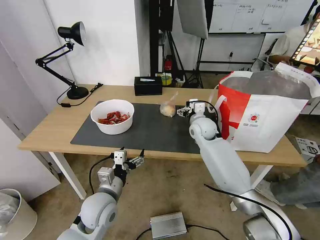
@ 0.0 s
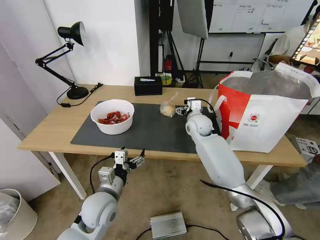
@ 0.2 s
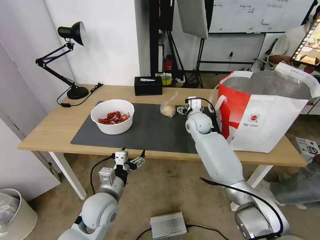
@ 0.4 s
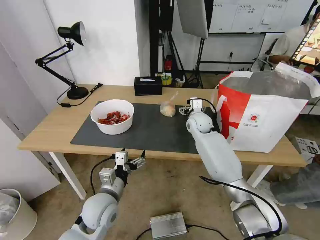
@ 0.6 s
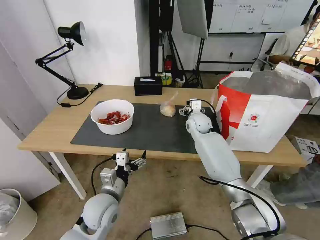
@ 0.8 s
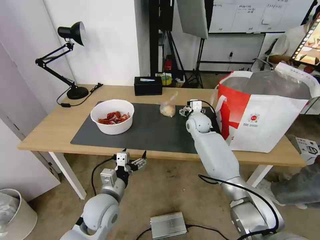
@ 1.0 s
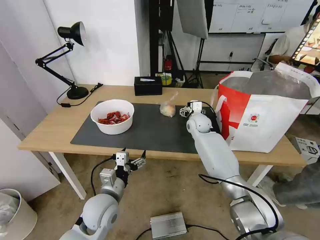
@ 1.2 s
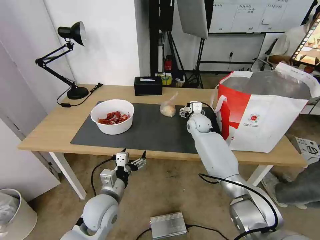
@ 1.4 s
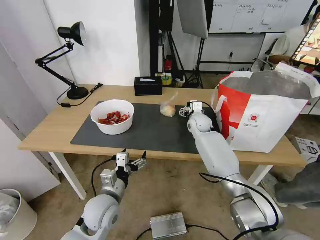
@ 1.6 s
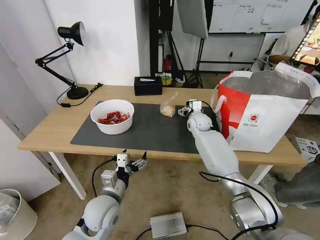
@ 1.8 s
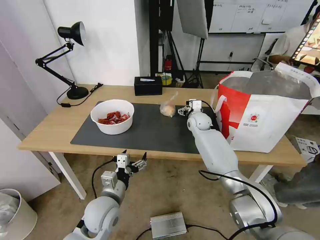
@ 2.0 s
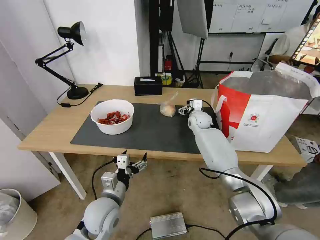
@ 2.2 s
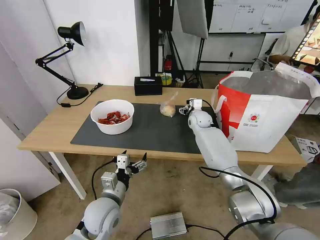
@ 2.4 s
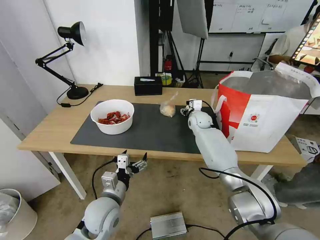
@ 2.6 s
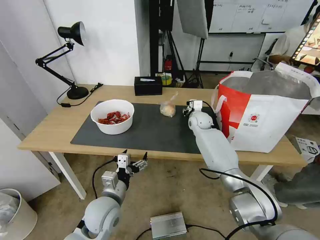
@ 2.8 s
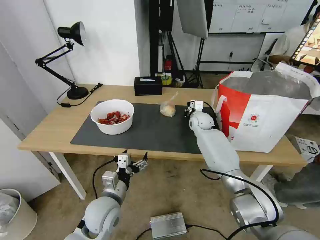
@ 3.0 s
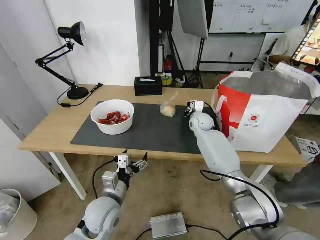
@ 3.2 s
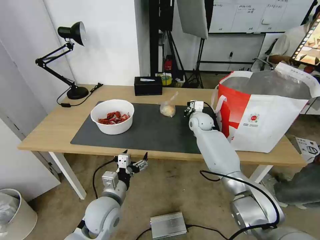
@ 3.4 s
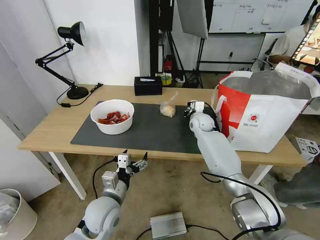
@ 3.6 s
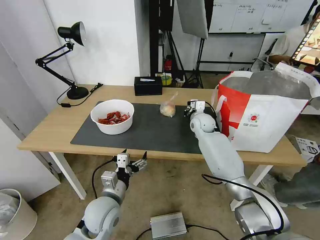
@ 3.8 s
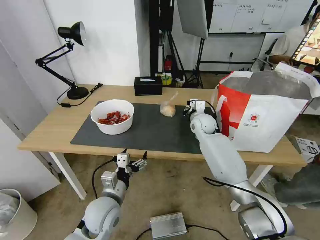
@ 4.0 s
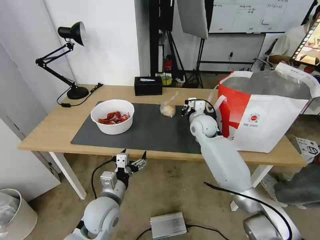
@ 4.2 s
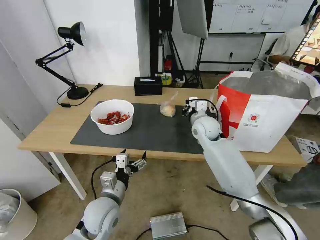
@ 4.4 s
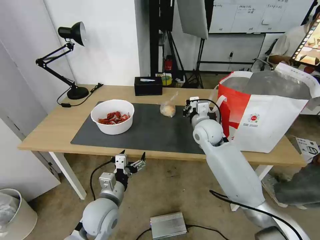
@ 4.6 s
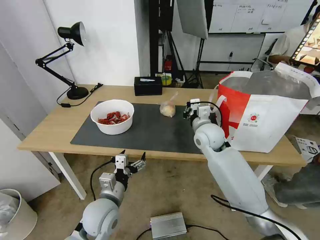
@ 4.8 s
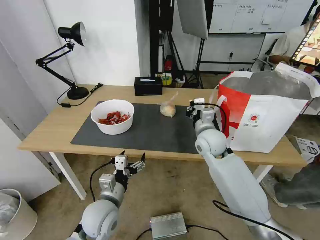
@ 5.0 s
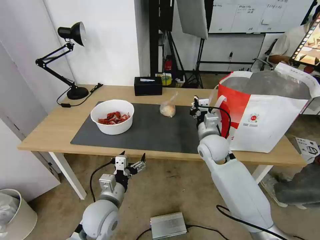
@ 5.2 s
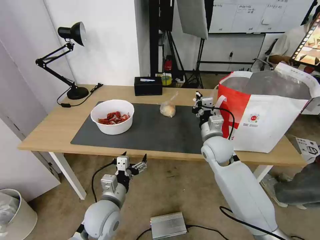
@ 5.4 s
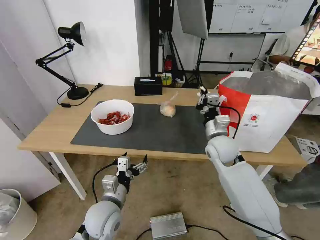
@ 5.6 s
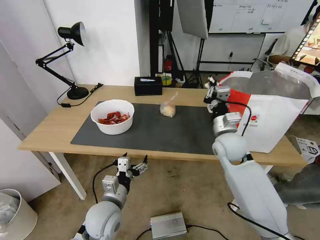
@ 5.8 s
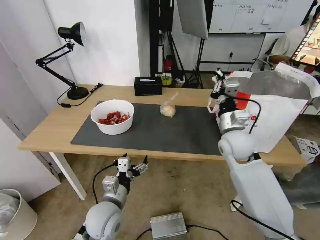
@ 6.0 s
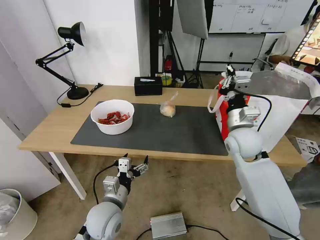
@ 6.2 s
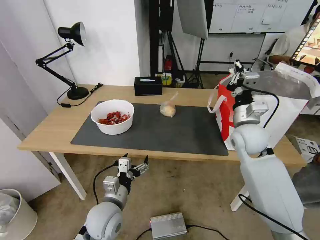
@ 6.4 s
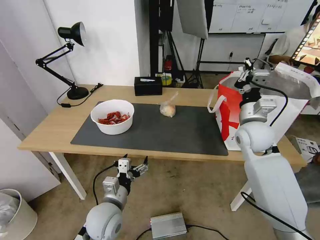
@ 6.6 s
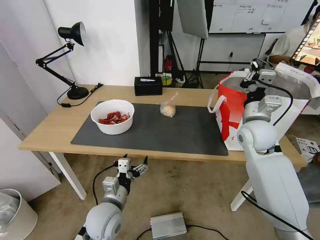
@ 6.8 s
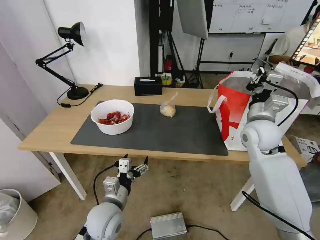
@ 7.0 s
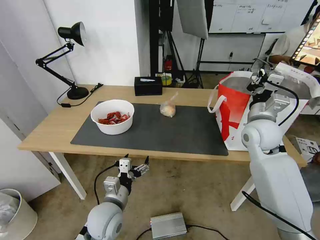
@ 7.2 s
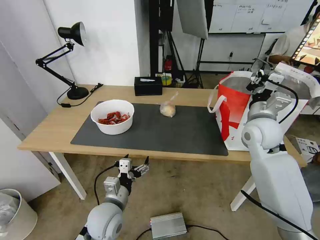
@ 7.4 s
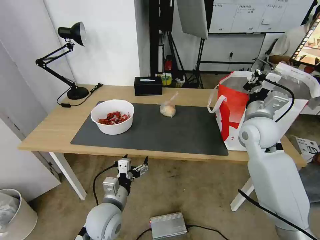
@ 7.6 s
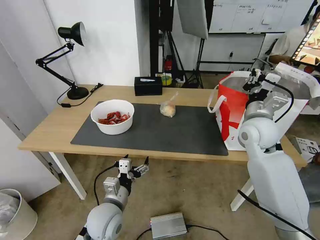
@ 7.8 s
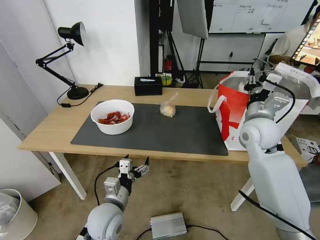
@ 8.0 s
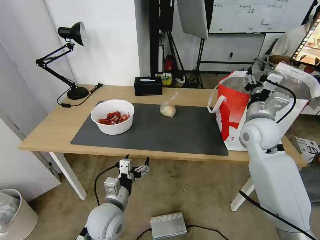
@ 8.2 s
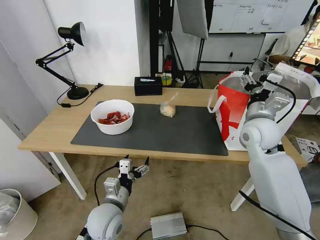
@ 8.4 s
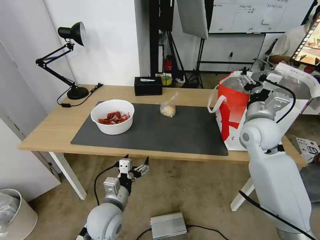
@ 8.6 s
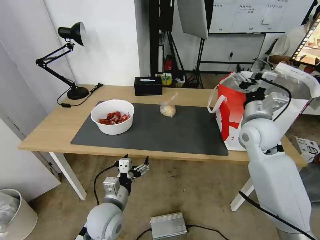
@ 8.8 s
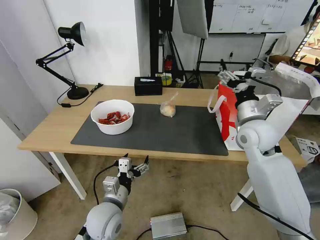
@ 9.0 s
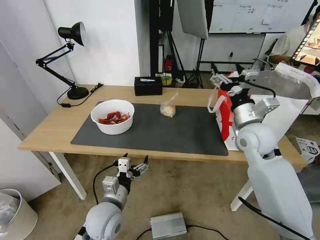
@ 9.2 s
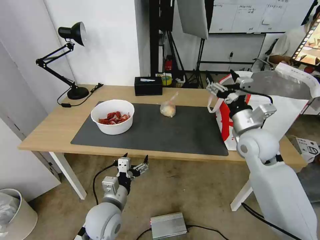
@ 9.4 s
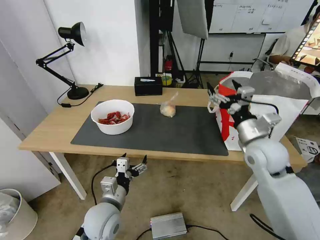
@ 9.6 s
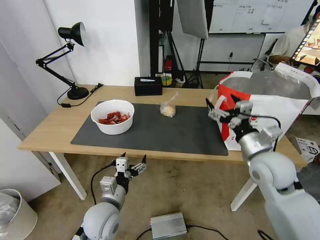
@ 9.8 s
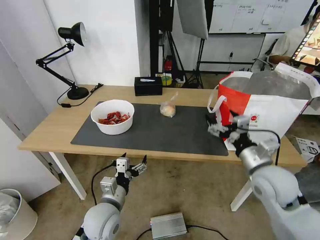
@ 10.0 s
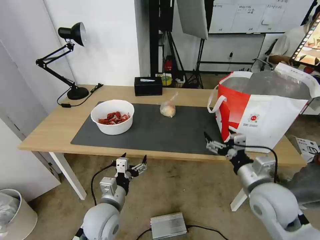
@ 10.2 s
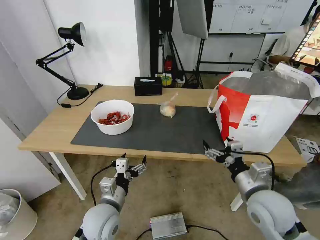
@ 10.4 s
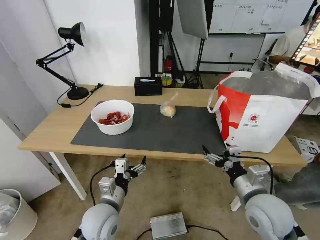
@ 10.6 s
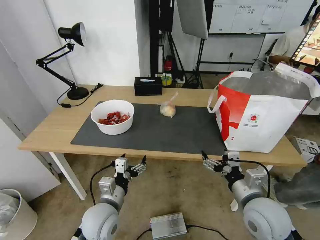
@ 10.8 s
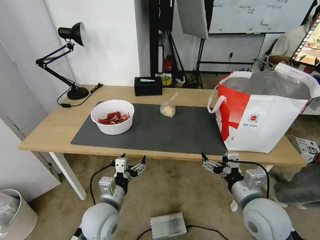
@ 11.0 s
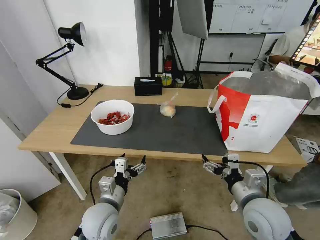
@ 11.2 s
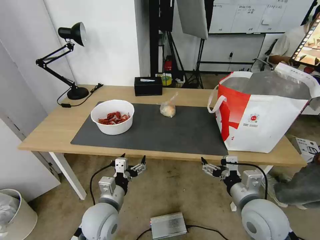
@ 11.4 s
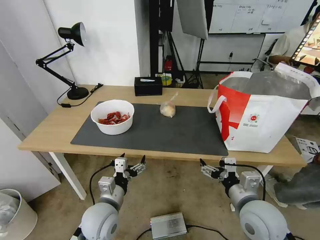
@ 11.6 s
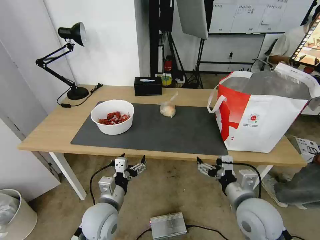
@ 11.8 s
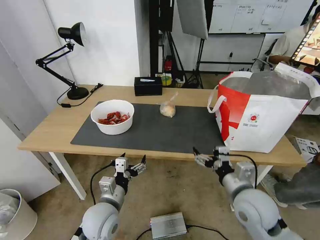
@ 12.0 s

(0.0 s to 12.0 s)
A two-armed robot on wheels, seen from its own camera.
Task of the whole recording: Pick up the trash from the table and place it into the takeout bag.
0.0 s - 1.6 s: The right gripper heads forward, covering some 5 cm.
1.6 s - 3.0 s: The right gripper closes.
3.0 s - 4.4 s: The right gripper heads backward and upward, covering approximately 10 cm.
4.4 s - 6.0 s: The right gripper goes some 10 cm backward and to the right.
6.0 s - 7.6 s: The right gripper ends up approximately 5 cm from where it was.
7.6 s - 9.0 s: The right gripper opens up.
9.0 s - 10.4 s: The right gripper travels backward and downward by some 20 cm.
10.4 s - 12.0 s: The grippers move only a little.

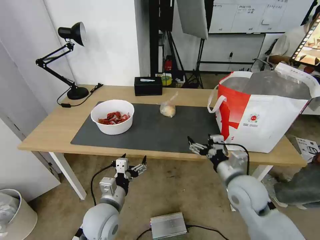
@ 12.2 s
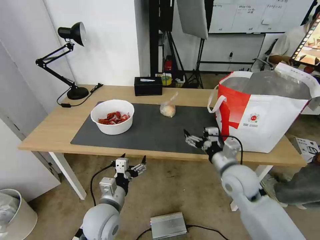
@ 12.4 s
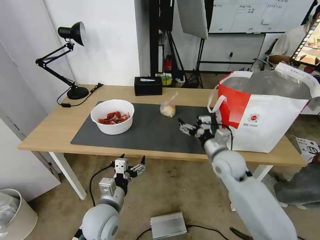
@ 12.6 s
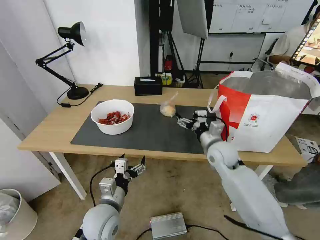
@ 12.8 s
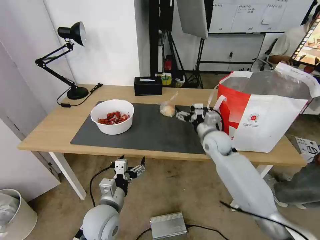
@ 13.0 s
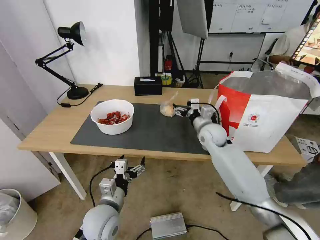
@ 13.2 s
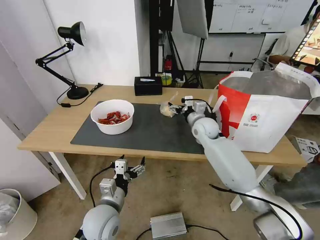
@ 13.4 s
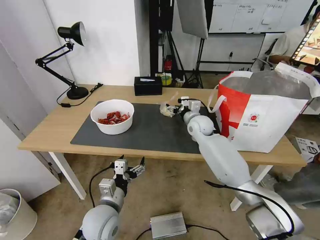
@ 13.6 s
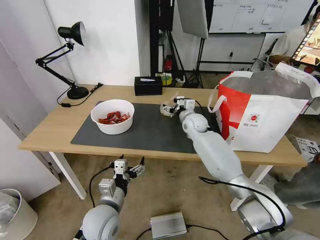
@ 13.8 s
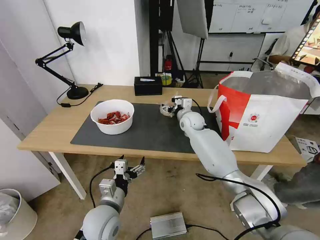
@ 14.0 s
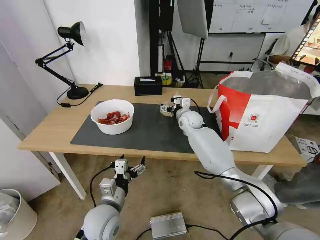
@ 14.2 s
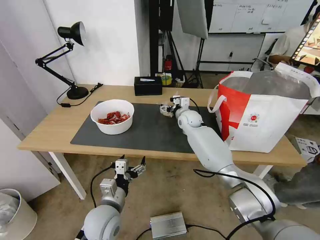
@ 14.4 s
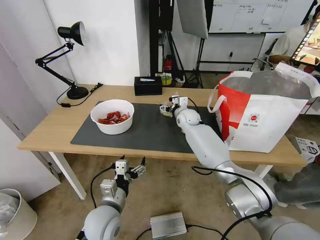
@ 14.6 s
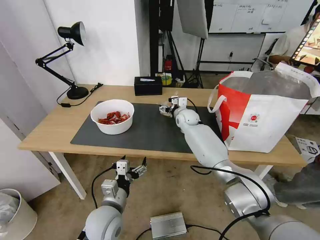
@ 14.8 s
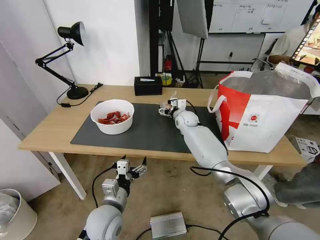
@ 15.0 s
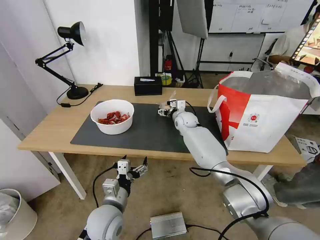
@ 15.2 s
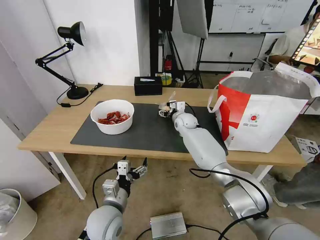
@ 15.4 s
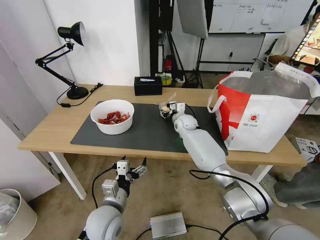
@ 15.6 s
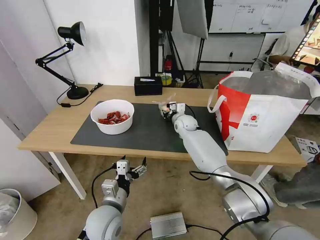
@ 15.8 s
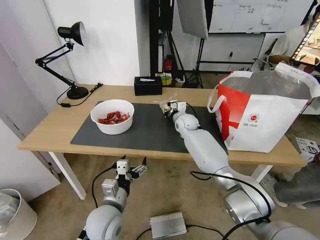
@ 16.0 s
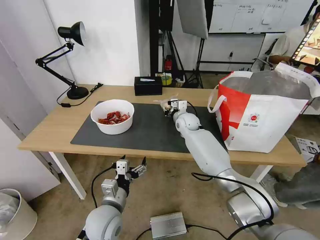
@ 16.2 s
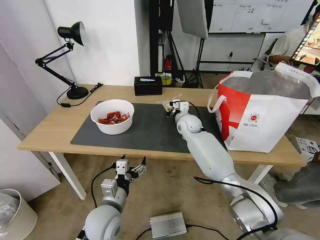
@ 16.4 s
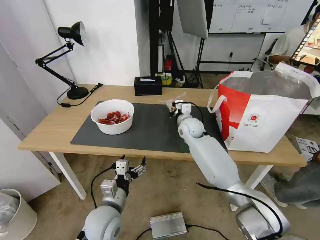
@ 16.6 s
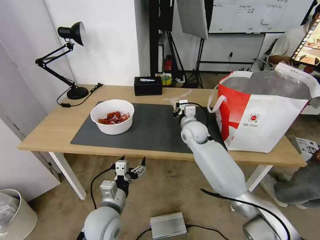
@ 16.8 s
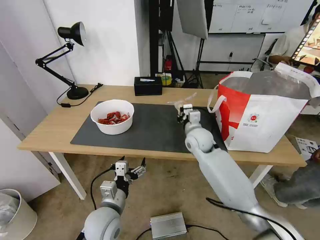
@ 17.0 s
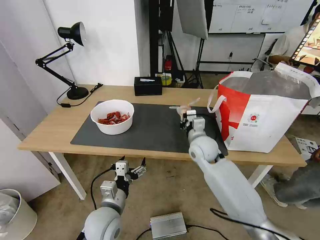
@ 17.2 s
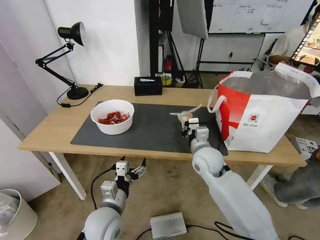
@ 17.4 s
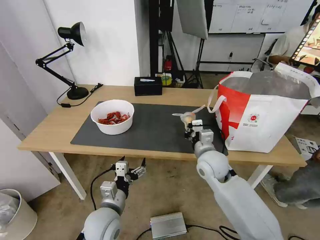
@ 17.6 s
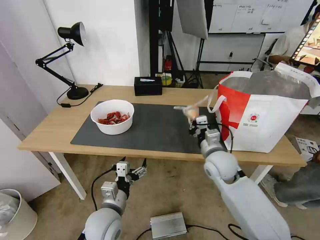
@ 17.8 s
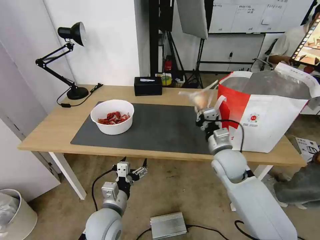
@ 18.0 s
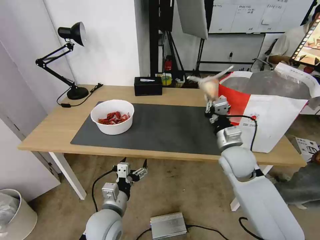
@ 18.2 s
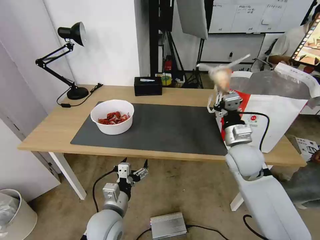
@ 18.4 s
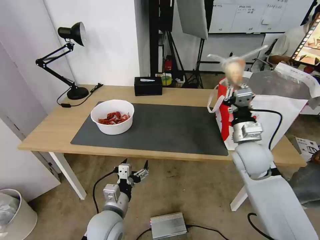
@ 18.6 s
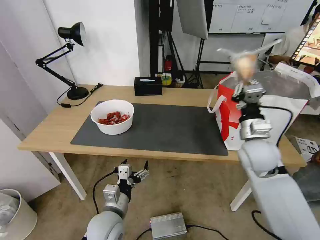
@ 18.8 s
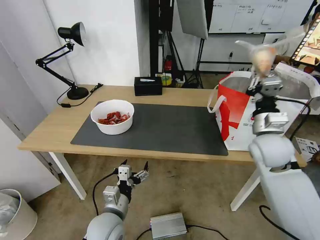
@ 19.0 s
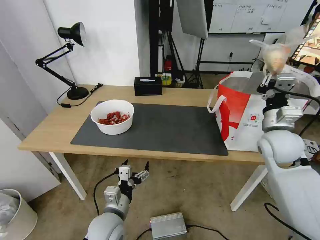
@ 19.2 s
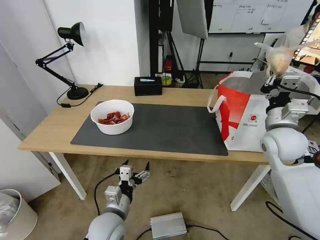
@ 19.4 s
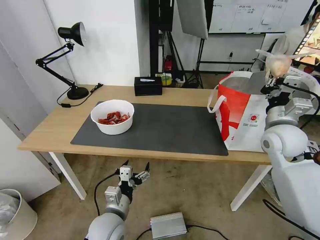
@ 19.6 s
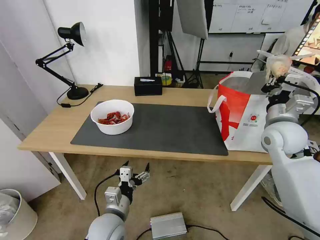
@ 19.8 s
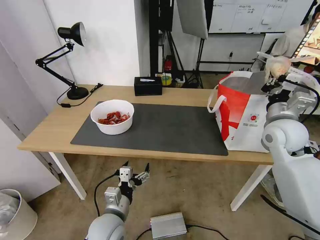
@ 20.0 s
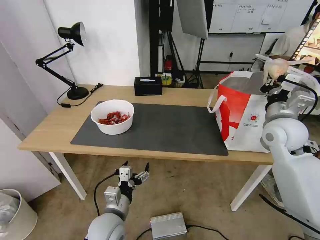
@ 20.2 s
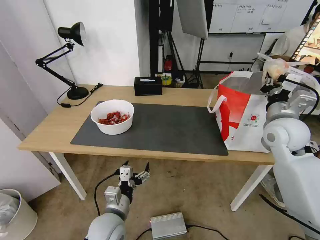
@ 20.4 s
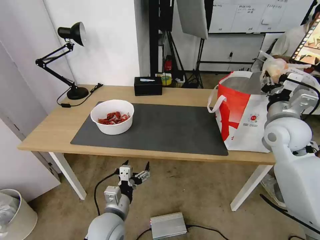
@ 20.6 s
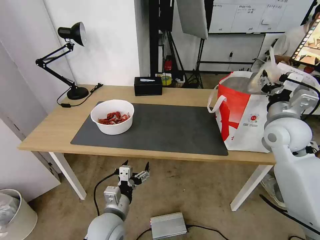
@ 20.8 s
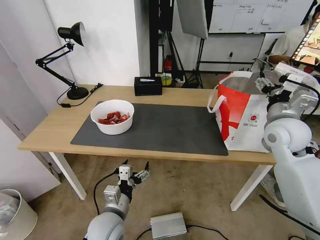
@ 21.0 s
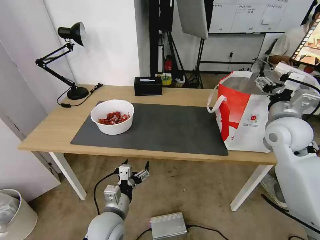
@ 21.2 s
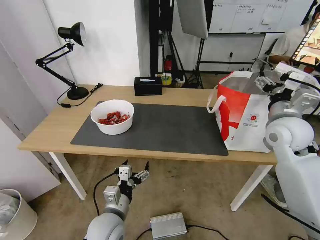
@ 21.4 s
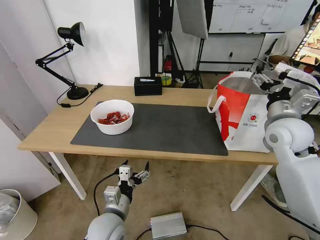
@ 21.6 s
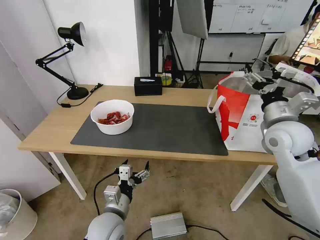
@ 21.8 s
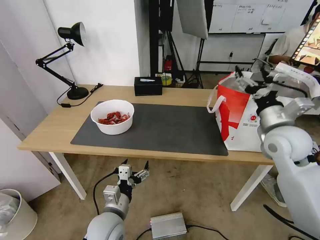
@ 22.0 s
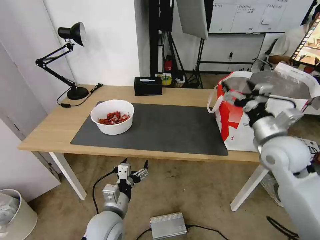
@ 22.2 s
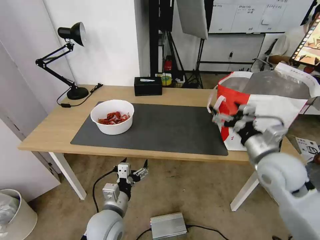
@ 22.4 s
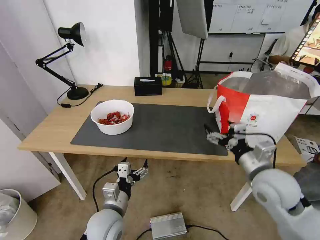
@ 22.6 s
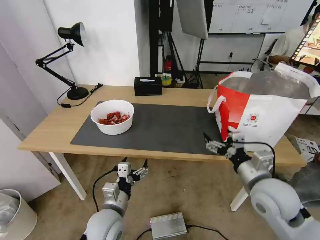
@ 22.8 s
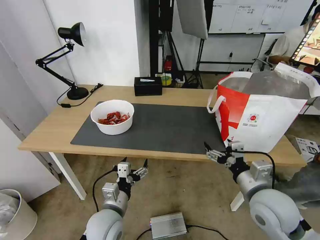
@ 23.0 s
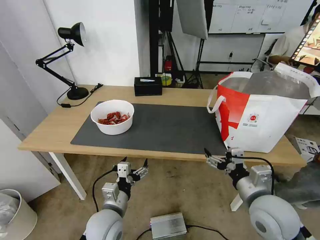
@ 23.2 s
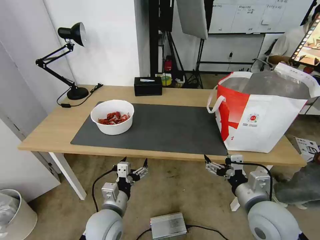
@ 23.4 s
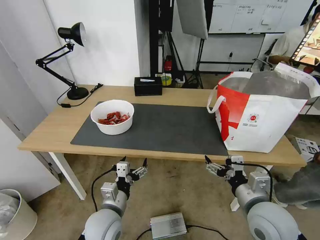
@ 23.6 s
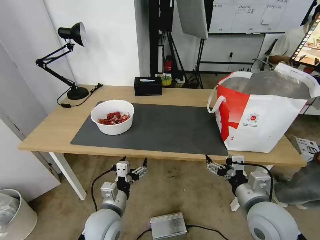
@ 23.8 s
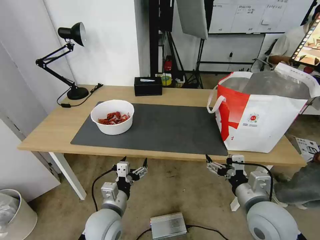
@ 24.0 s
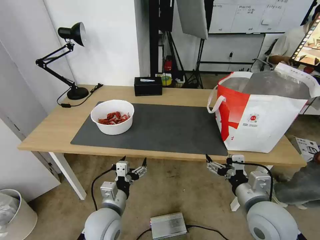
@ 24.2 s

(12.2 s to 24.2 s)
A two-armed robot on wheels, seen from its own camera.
Task of the whole recording: Pick up the trash from the table and place it into the takeout bag.
12.2 s - 13.8 s: The right gripper goes roughly 30 cm forward.
13.8 s - 15.2 s: The right gripper moves roughly 5 cm.
15.2 s - 16.6 s: The right gripper travels backward by about 5 cm, and closes up.
16.6 s - 18.2 s: The right gripper shifts approximately 20 cm backward and to the right.
18.2 s - 19.8 s: The right gripper shifts approximately 15 cm to the right and upward.
19.8 s - 21.2 s: The right gripper opens.
21.2 s - 22.6 s: The right gripper heads backward, downward and to the left, covering about 15 cm.
22.6 s - 24.2 s: The right gripper goes roughly 5 cm backward.
